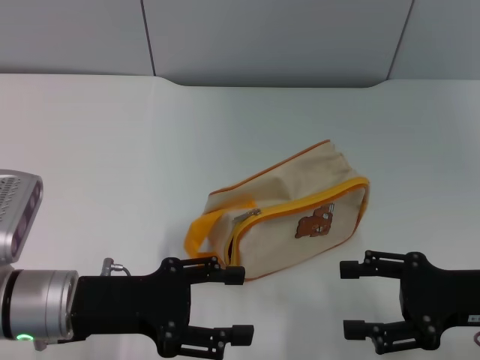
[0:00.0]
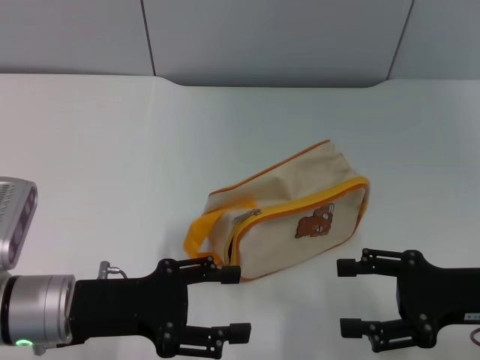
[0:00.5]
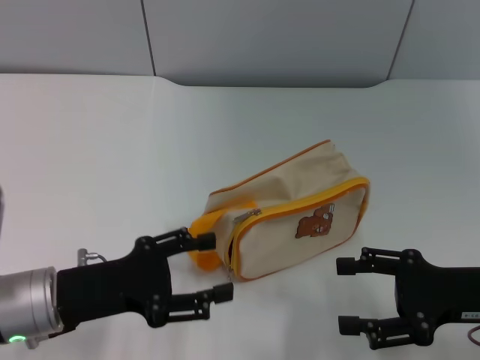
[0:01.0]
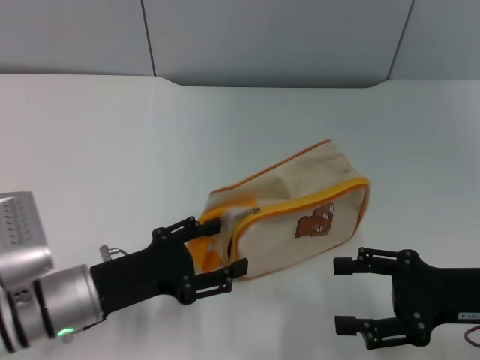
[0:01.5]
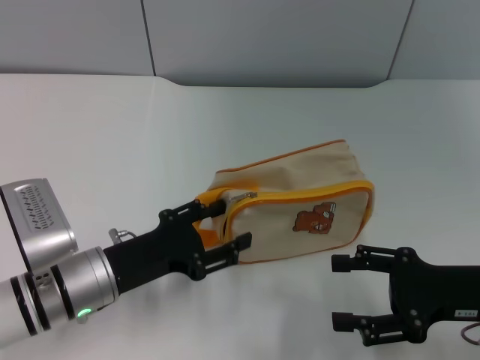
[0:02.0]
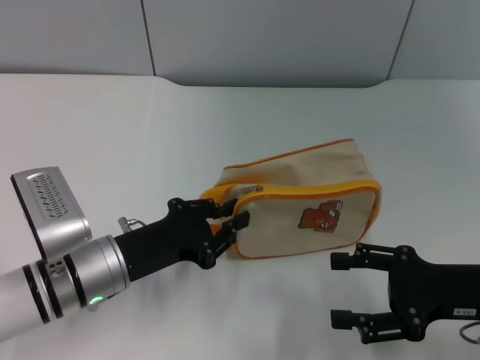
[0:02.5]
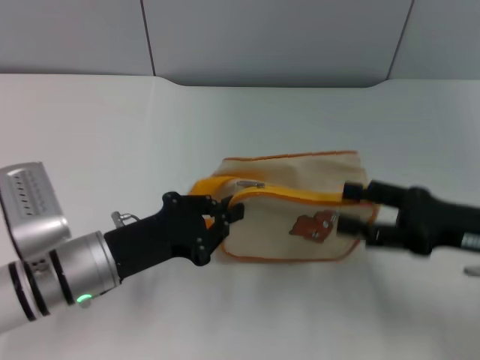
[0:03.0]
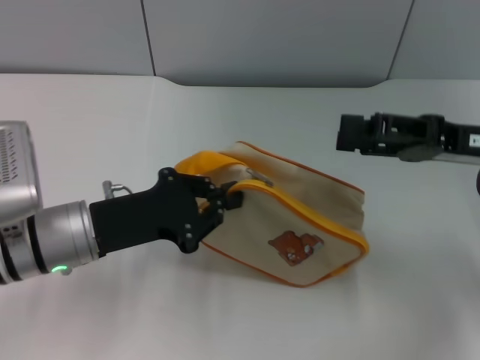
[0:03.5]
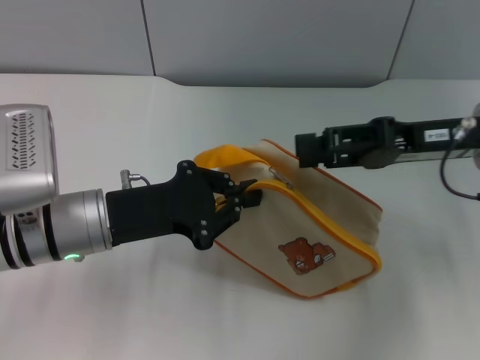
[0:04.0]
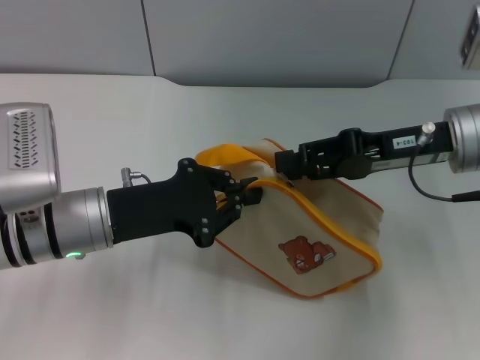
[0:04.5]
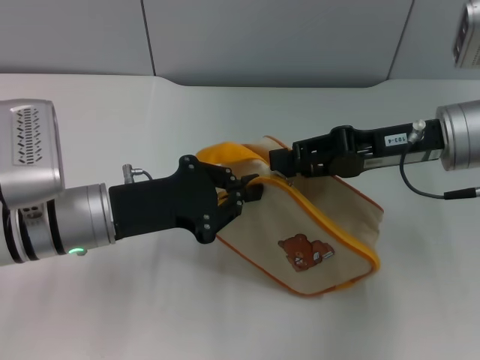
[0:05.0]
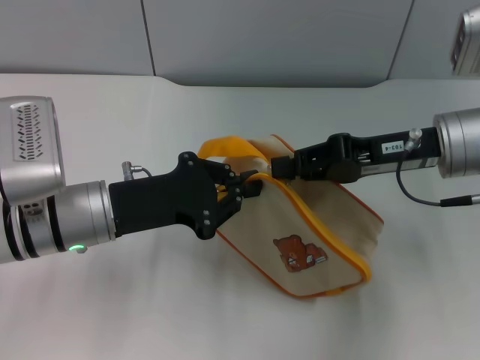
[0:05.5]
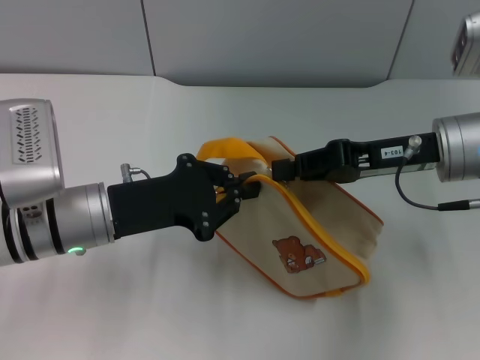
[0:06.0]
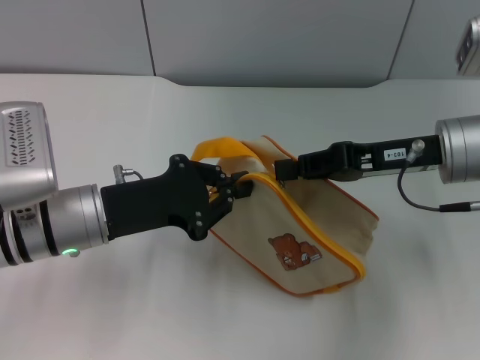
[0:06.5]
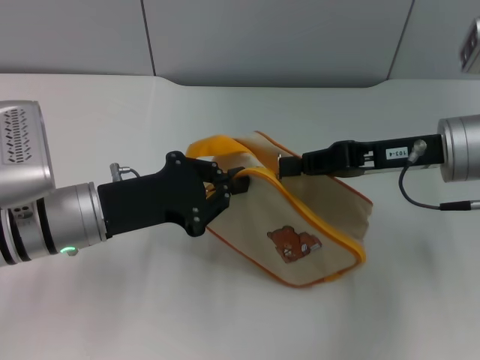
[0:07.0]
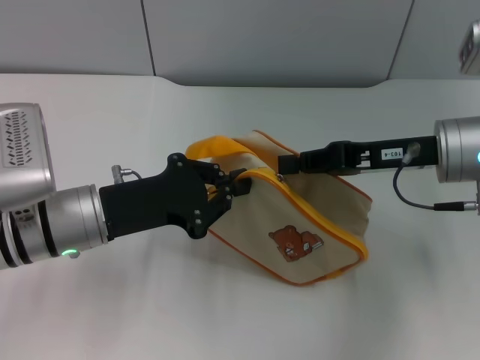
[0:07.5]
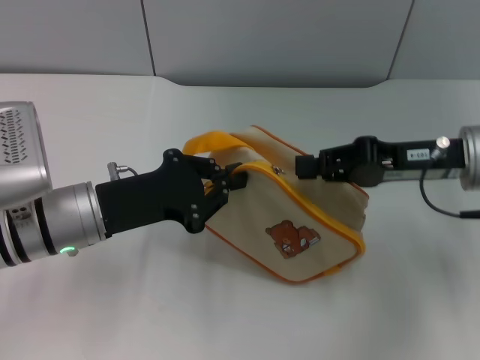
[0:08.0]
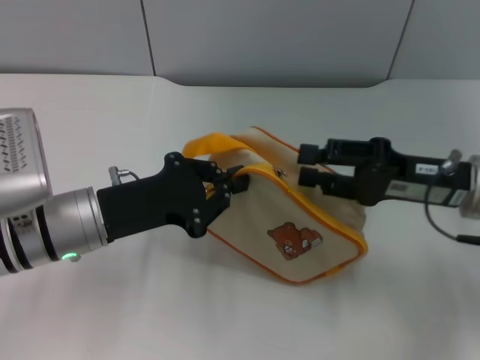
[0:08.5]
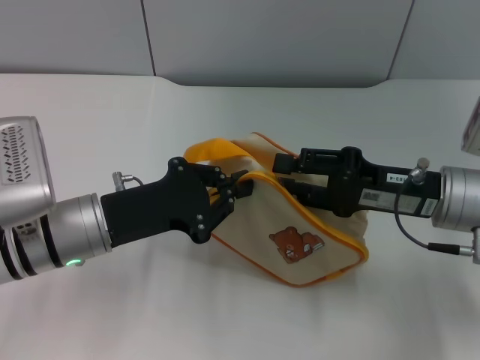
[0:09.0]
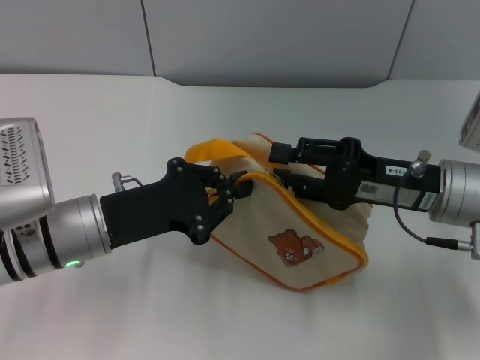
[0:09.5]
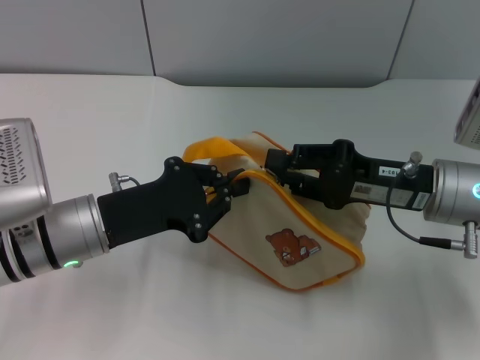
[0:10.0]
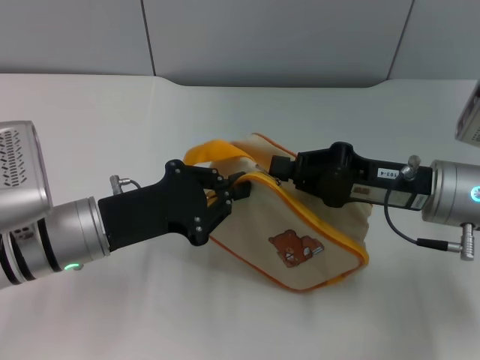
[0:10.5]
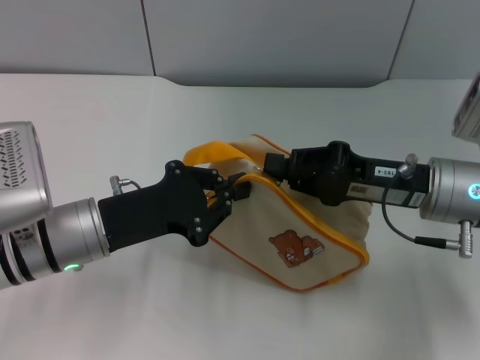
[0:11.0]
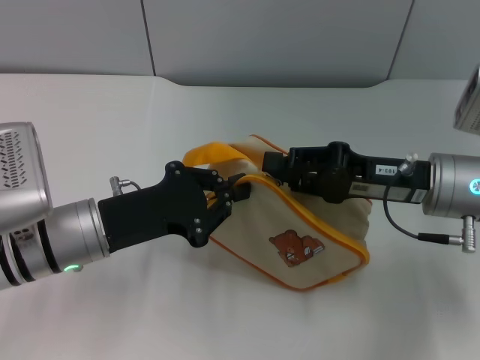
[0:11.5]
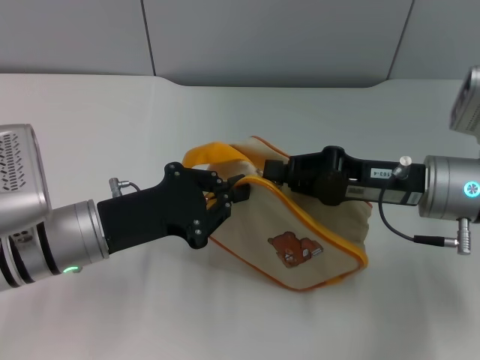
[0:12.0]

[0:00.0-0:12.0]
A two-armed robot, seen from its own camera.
Step, 0:00.0 to 0:03.5: Pick up the bag with left gripper.
0:00.0 to 0:02.0: The left gripper ends up about 5 cm from where it was.
0:02.0 to 0:04.0: The left gripper moves upward, about 5 cm, and closes its fingers, while the right gripper moves forward and upward, approximately 15 cm.
0:04.0 to 0:06.0: The right gripper closes its fingers.
0:06.0 to 0:08.0: The grippers move only a little.
0:08.0 to 0:10.0: The right gripper opens up.
0:10.0 to 0:12.0: The right gripper closes.

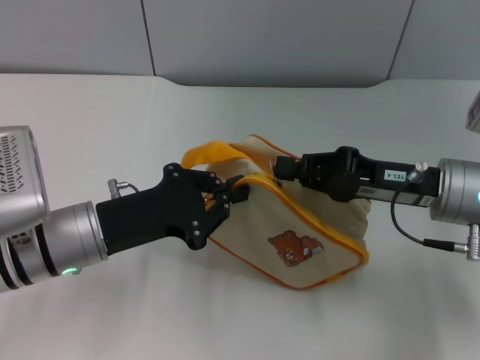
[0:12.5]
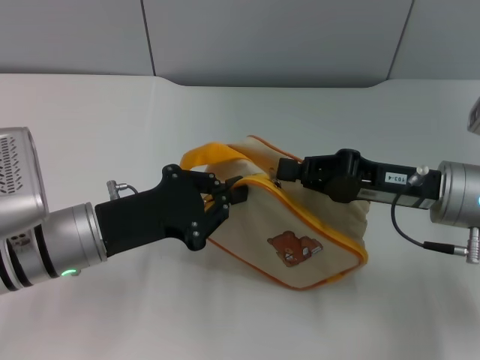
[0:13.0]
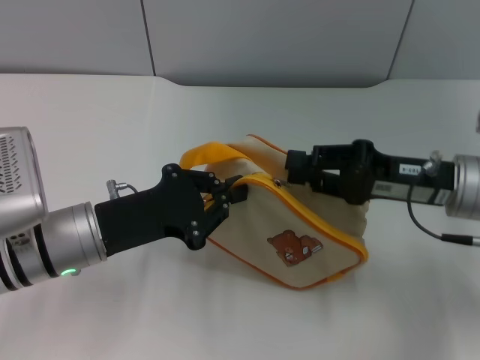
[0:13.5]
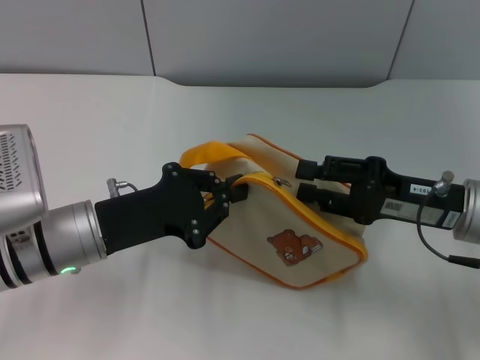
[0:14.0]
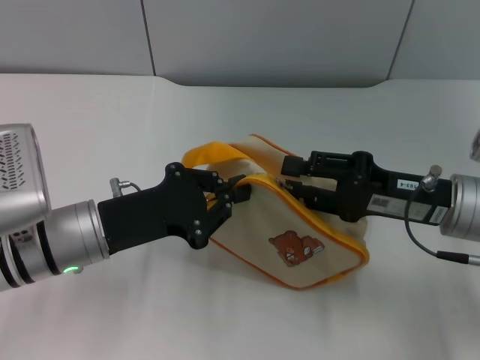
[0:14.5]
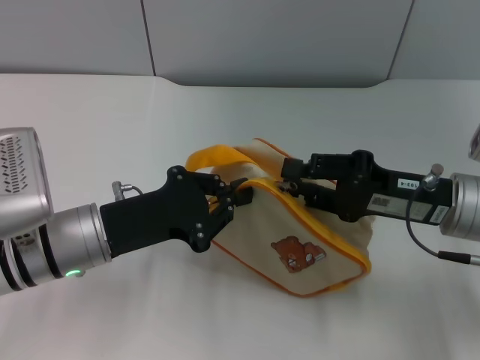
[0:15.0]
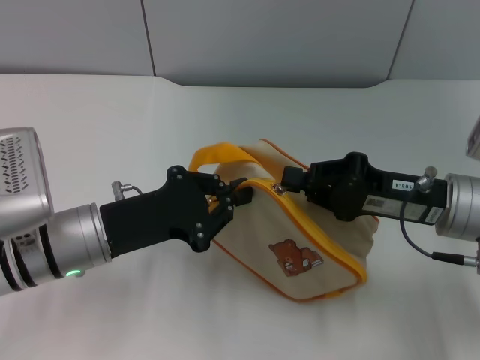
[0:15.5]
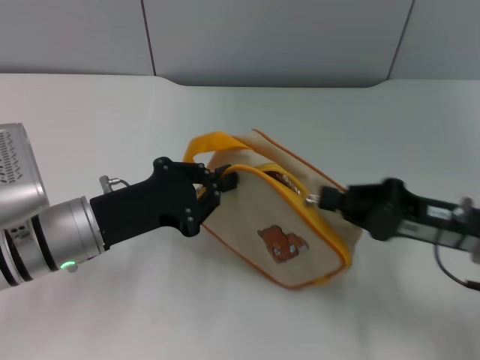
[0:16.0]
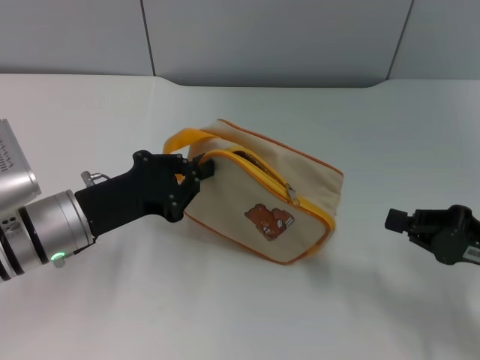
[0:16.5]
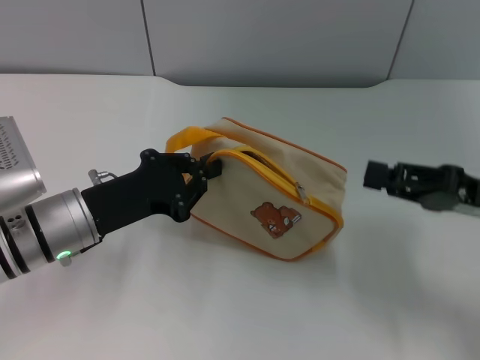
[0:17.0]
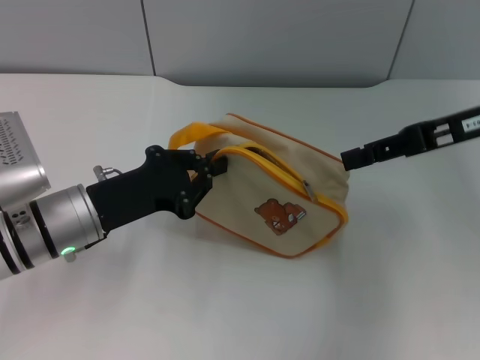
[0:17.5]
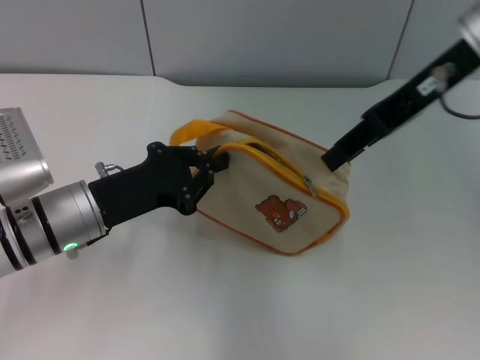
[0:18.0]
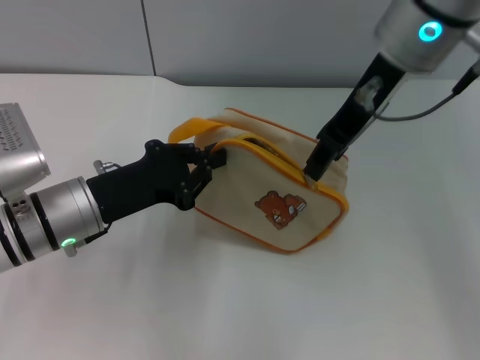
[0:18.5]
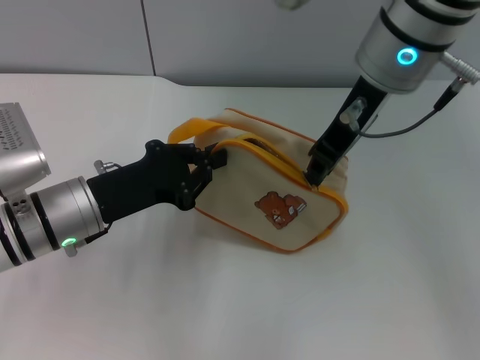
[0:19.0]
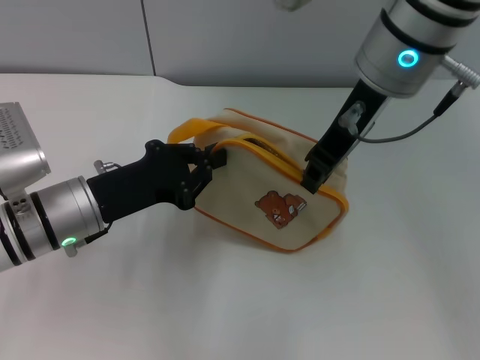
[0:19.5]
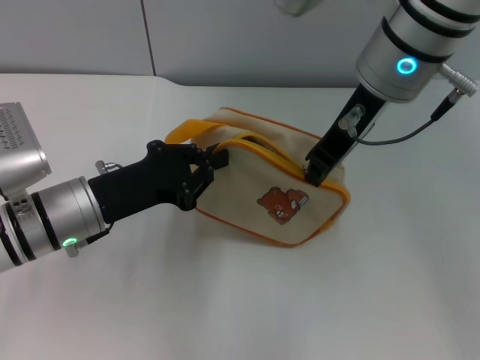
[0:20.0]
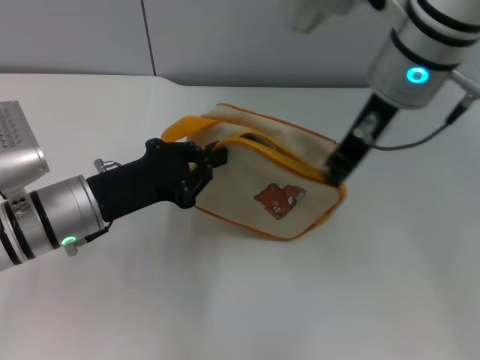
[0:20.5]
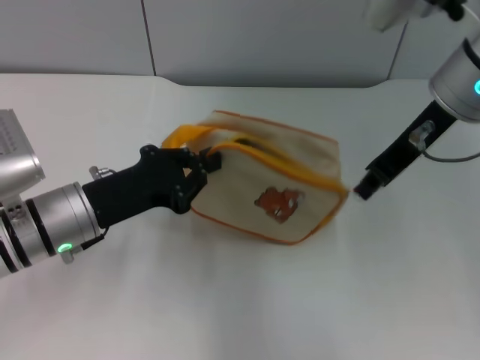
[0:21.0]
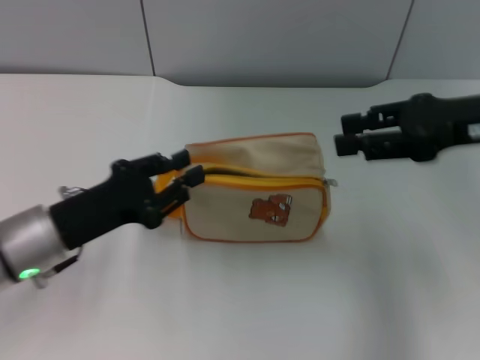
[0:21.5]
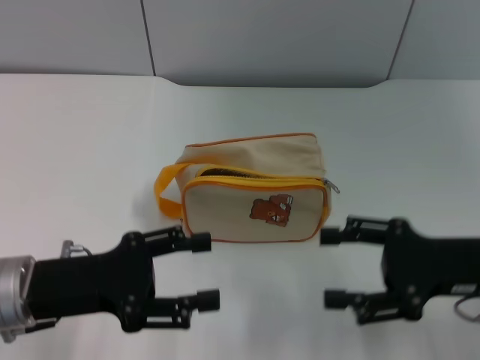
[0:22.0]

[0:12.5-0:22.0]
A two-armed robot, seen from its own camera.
Step, 0:12.5 to 0:21.0: Unzip the zipper of bag with right gripper.
0:12.5 to 0:14.5: The right gripper opens up.
0:14.5 to 0:16.5: The right gripper shifts approximately 10 cm to the right and backward, and closes.
0:16.5 to 0:18.0: The right gripper heads upward, to the left and forward, covering about 30 cm, and opens up.
0:18.0 to 0:20.0: The right gripper goes roughly 5 cm to the left, and closes its fingers.
0:20.0 to 0:22.0: The right gripper shifts approximately 25 cm downward, to the right and backward, and opens; the left gripper travels backward by some 5 cm, and opens.

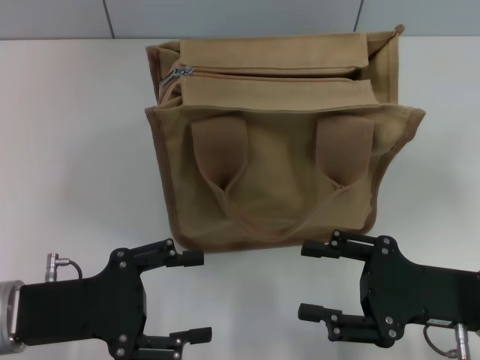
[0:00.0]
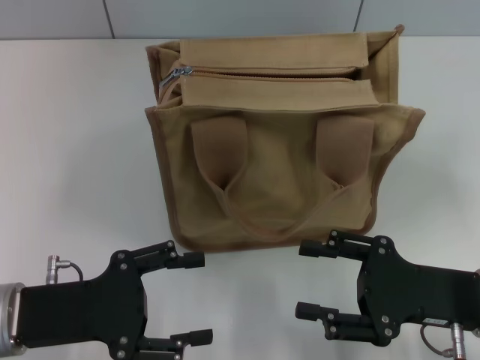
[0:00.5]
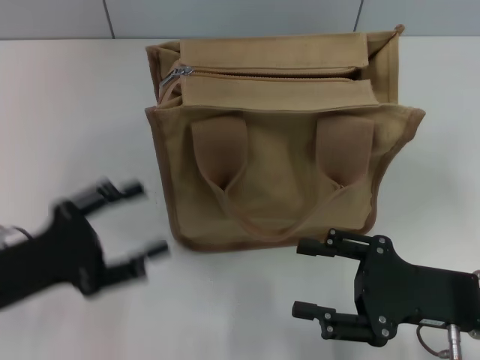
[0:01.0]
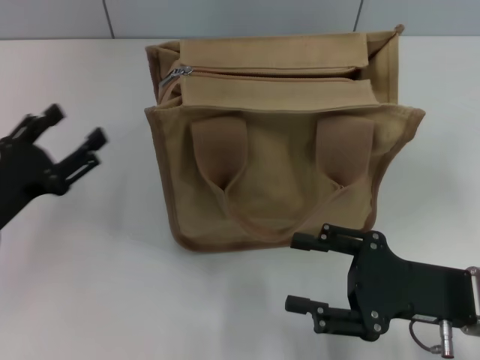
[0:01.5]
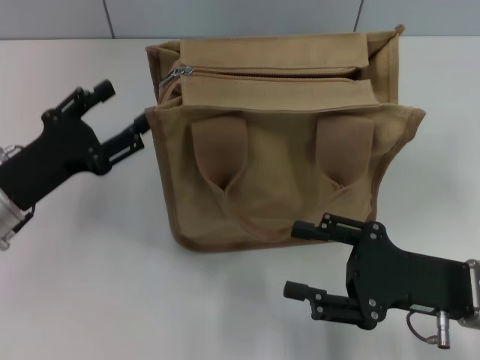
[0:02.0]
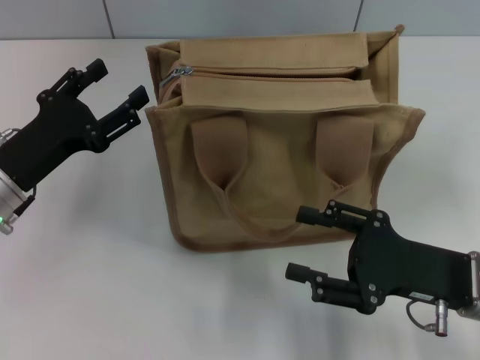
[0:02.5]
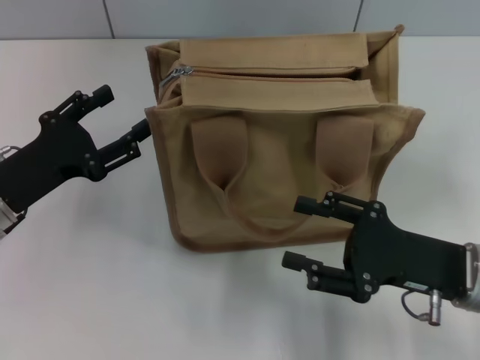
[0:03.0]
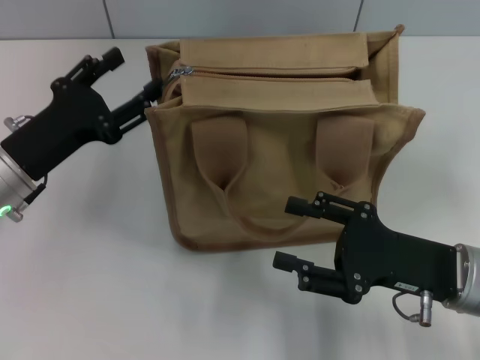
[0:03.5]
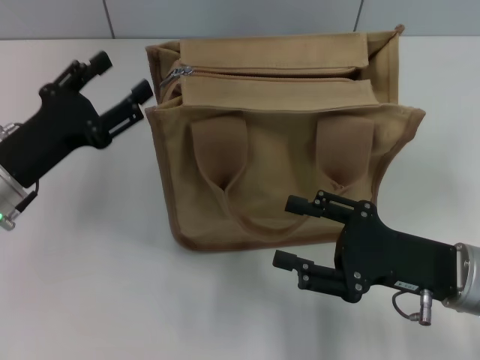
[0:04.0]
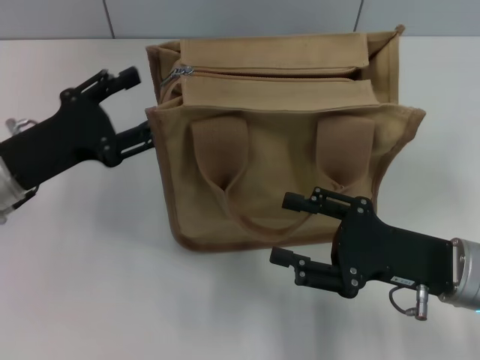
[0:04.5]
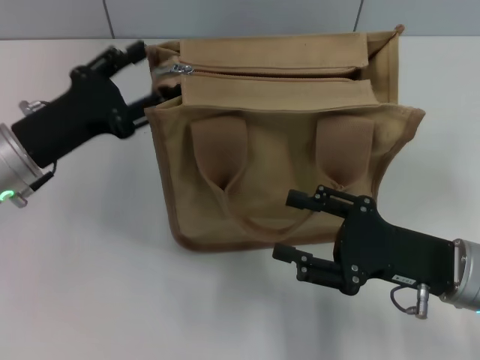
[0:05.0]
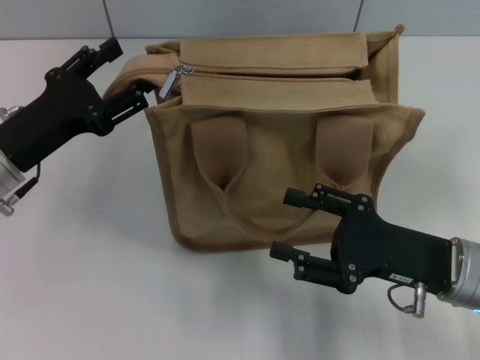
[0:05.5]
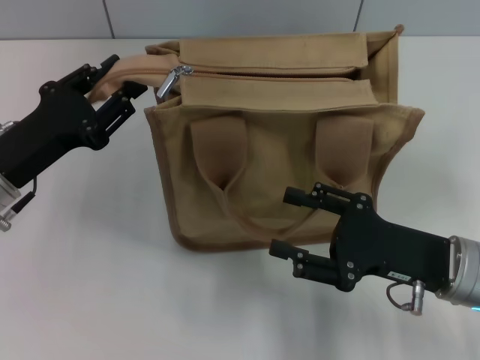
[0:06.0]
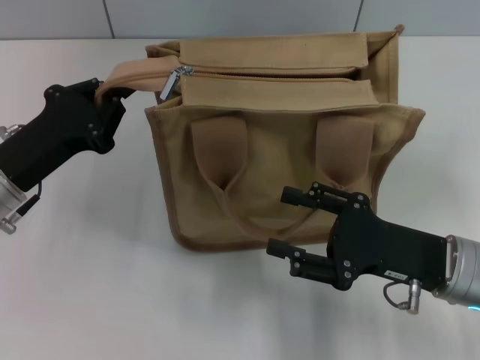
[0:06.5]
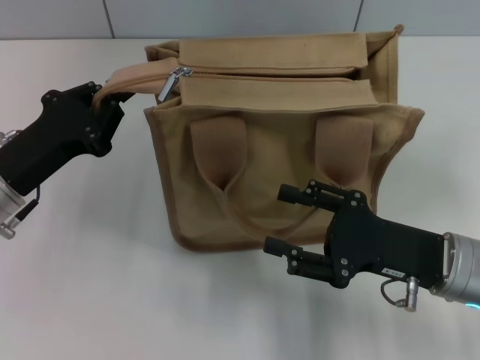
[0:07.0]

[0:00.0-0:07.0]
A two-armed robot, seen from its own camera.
0:00.0 to 0:02.0: The left gripper moves forward, some 5 cm.
0:02.0 to 0:05.0: The grippers move only a little.
0:05.0 to 0:07.0: The left gripper closes its fingers.